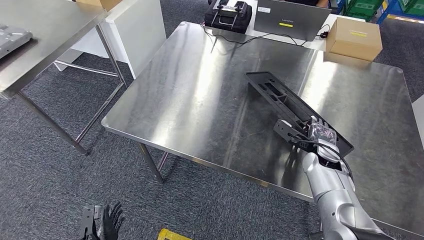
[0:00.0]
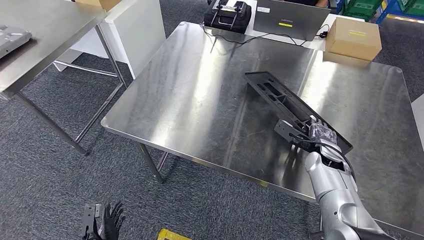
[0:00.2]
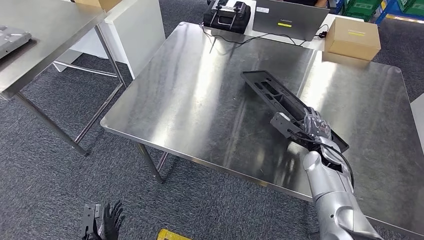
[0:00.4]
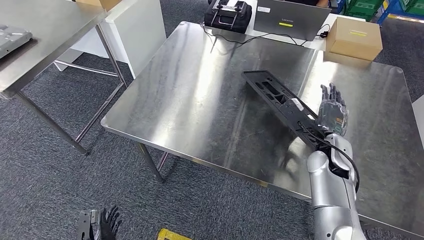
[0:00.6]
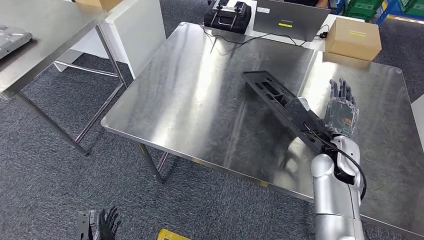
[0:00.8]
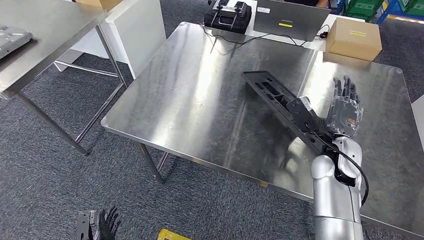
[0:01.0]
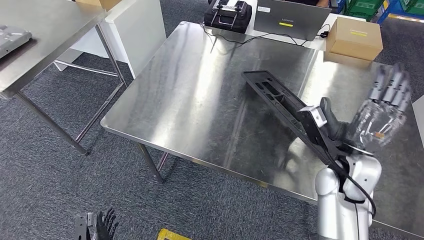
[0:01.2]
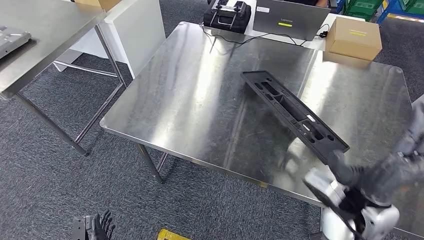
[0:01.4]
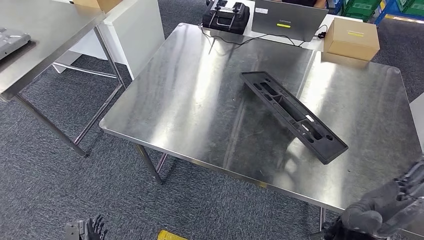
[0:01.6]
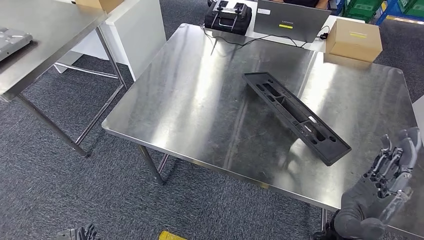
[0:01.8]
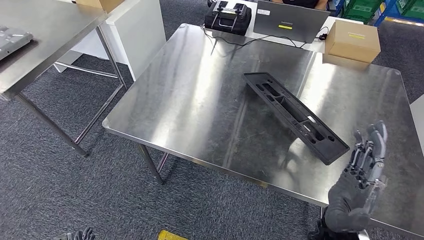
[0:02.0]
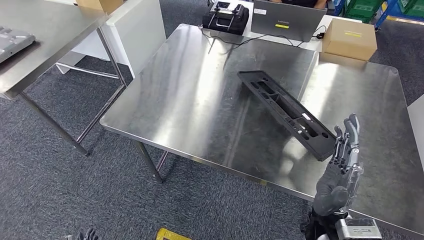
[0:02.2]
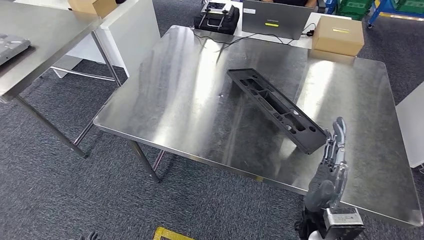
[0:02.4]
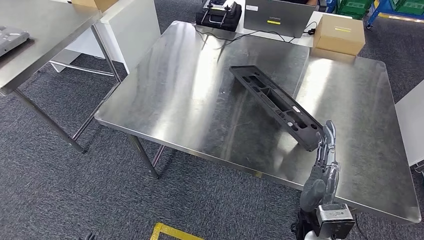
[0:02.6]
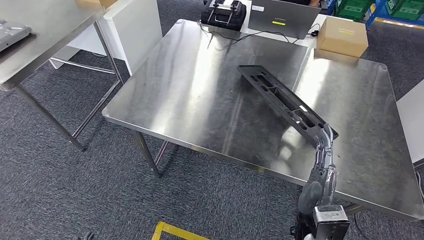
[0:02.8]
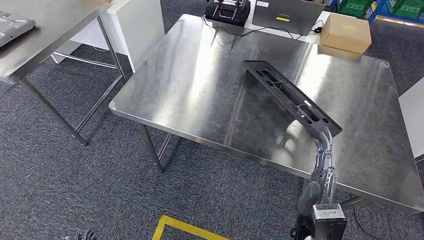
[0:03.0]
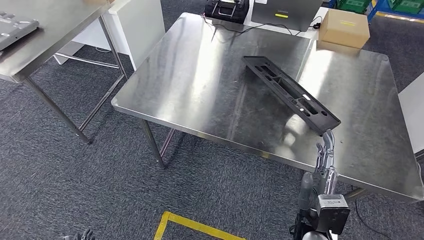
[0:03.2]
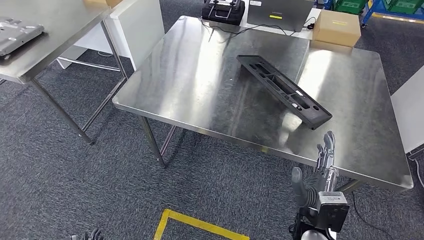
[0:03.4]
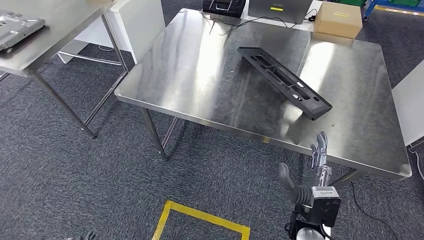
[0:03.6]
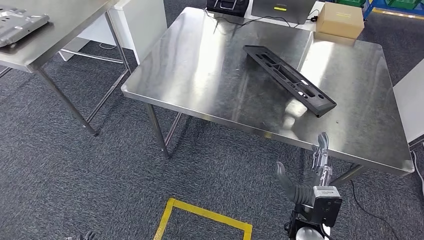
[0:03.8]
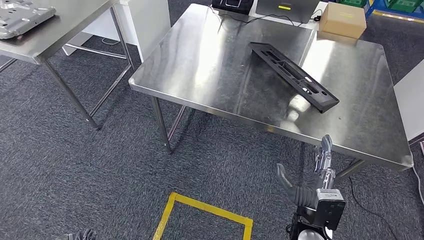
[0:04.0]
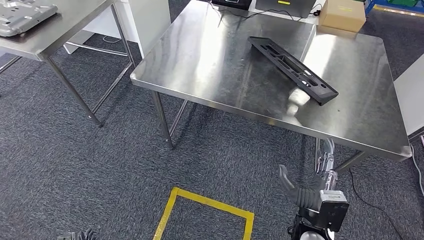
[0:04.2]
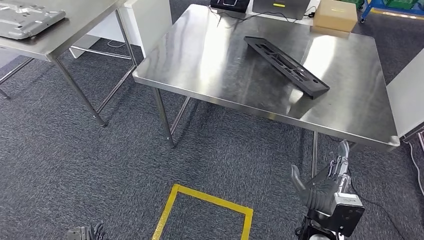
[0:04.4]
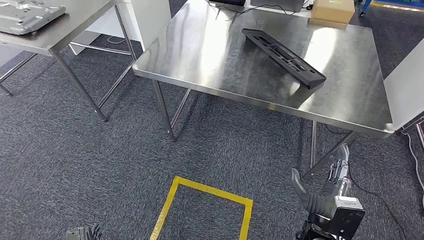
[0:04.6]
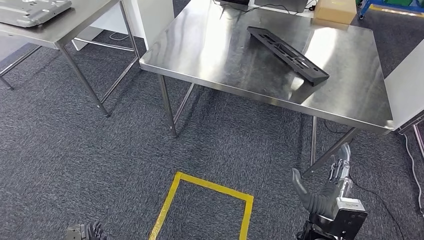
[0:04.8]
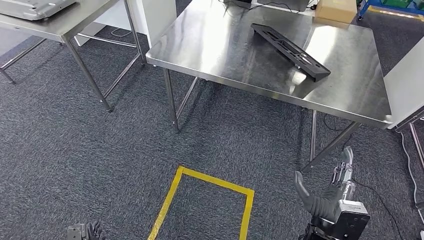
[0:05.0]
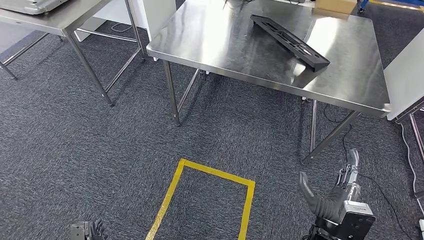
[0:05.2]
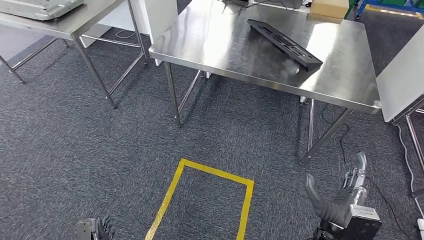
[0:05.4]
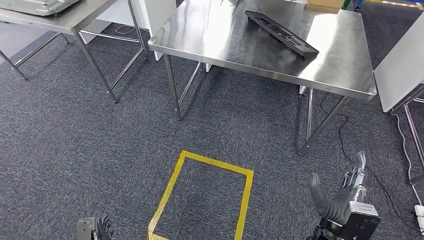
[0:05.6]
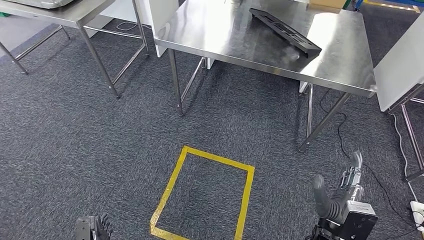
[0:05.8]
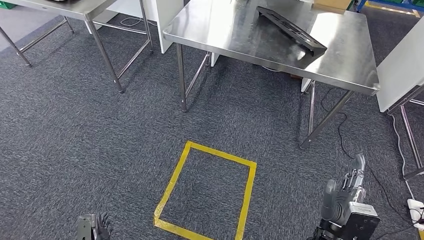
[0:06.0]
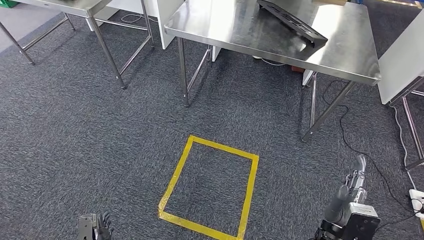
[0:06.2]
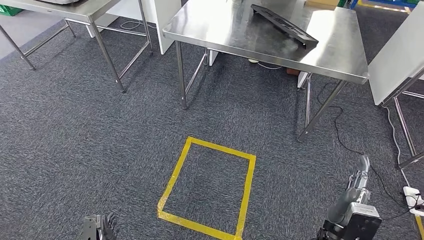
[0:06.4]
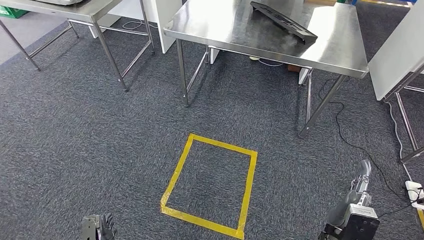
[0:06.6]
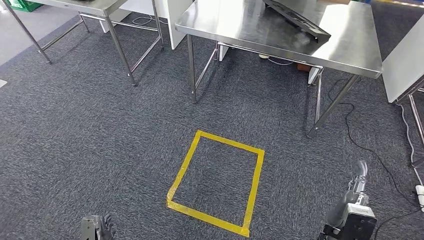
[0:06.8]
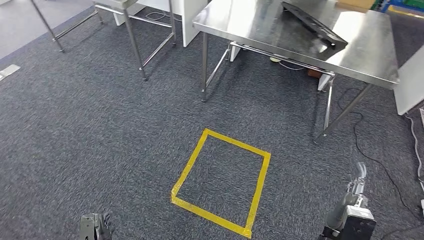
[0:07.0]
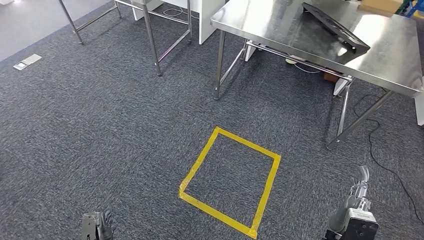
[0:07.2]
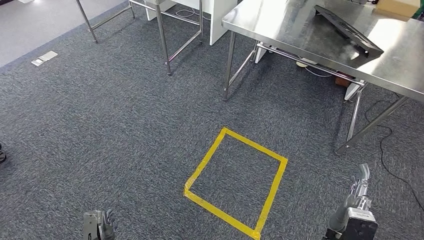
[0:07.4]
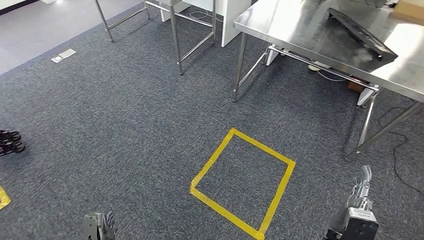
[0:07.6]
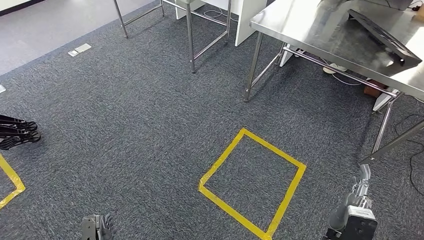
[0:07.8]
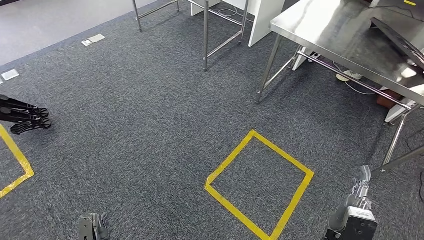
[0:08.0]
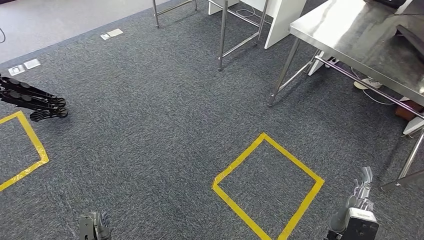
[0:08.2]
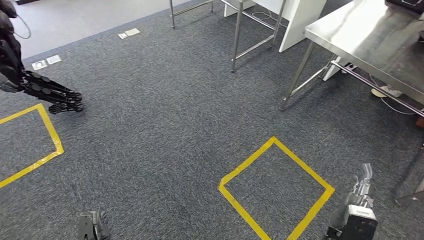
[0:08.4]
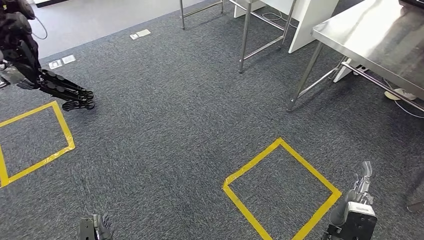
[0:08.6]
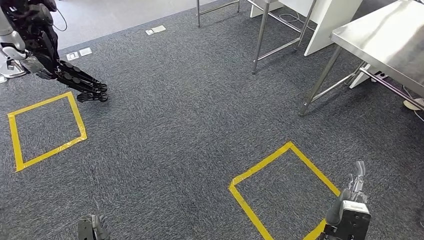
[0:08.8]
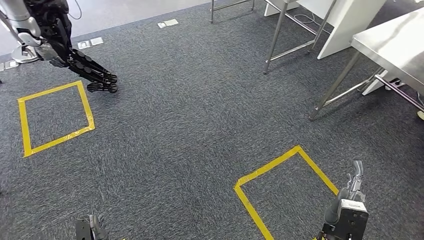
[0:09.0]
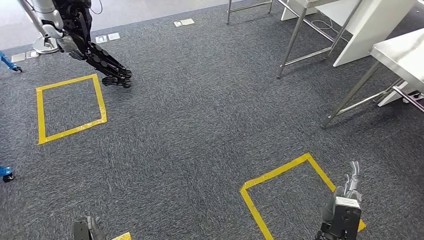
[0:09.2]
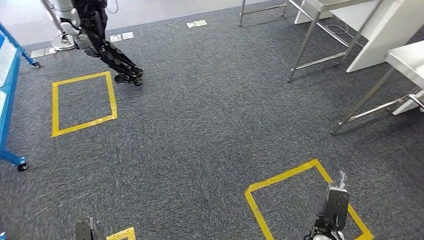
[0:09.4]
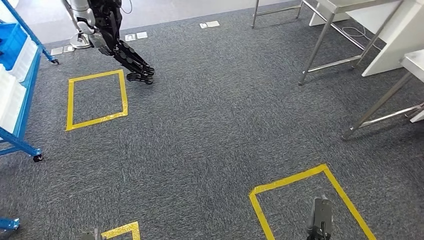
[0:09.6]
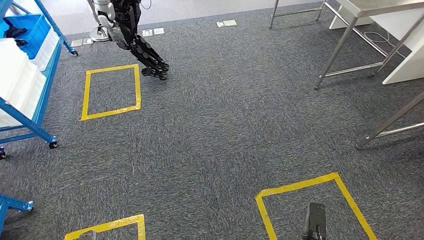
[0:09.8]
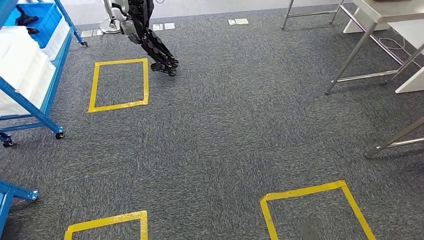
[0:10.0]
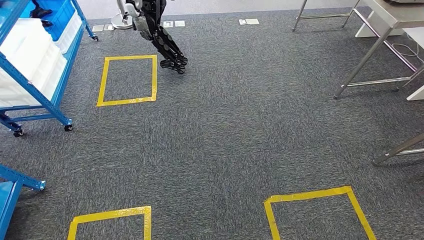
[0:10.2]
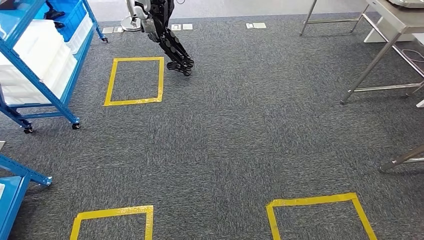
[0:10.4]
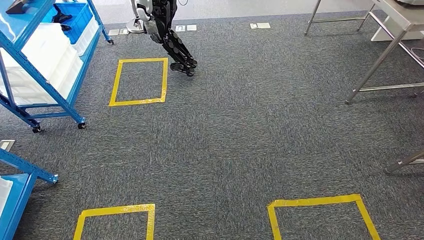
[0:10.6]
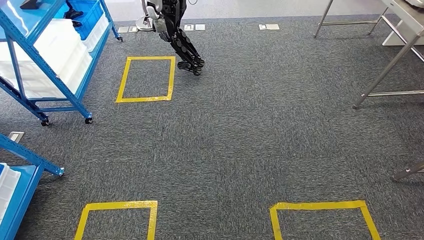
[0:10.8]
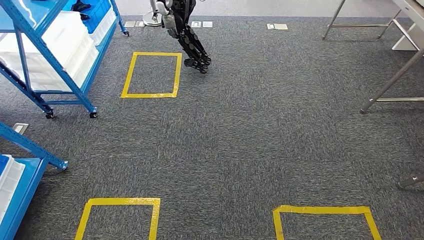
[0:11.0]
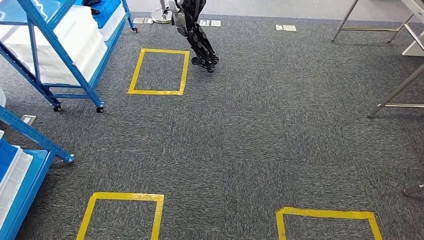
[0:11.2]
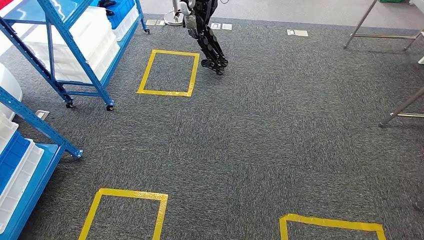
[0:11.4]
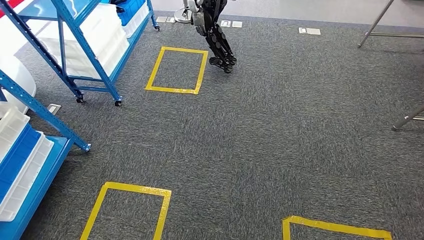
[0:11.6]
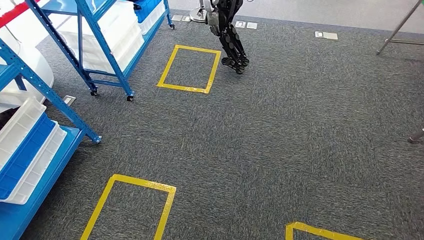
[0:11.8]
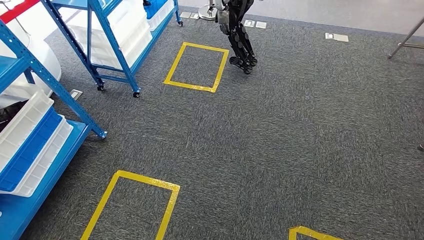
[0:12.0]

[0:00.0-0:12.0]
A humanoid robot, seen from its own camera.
0:00.0 to 0:01.6: The right hand shifts approximately 25 cm backward, upward and to the left.

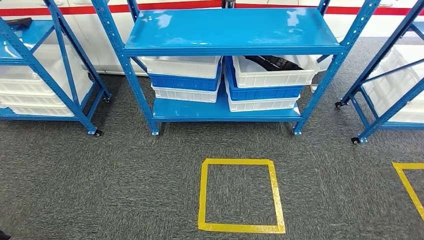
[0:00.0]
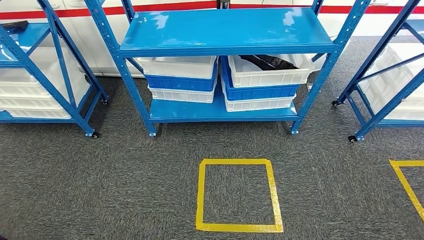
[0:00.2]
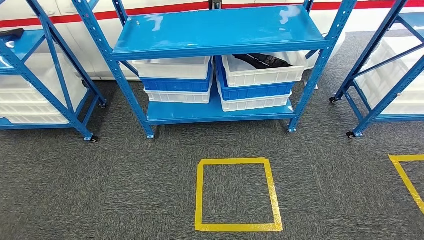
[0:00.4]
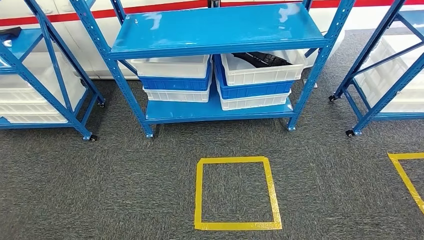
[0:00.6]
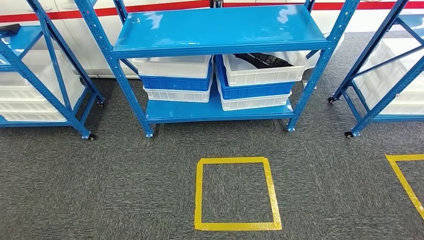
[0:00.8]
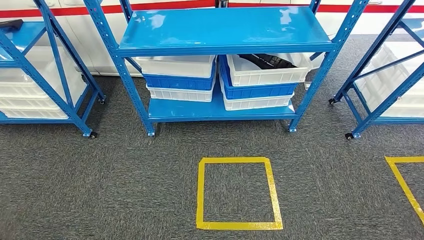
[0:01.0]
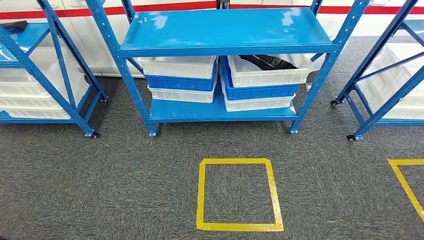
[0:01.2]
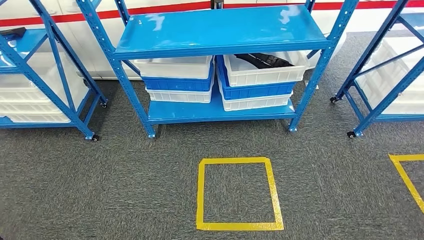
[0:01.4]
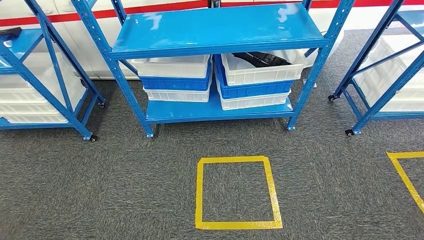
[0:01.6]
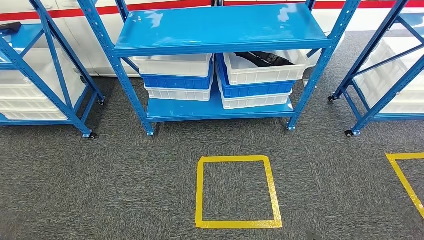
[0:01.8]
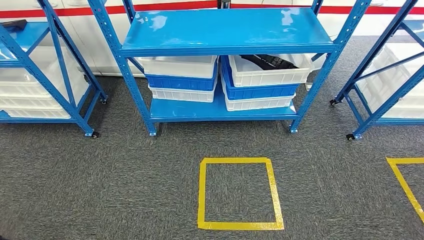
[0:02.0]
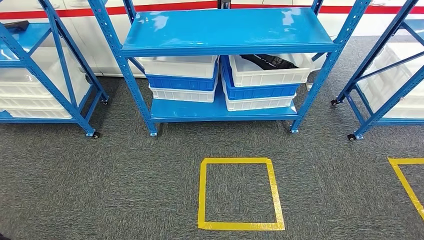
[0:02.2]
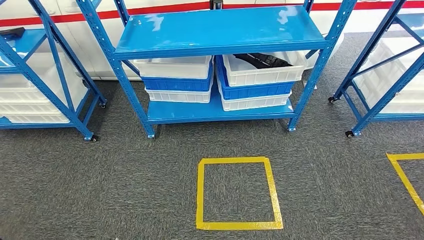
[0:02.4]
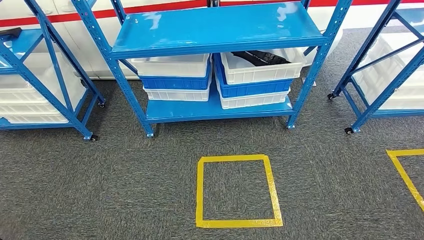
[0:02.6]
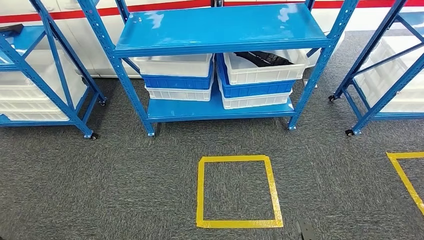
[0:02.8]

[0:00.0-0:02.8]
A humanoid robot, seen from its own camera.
Step, 0:00.0 to 0:02.8: Return to the initial position at the shelf.
0:01.4 to 0:02.8: The right hand reaches roughly 10 cm backward, then returns. The left hand goes forward and backward, about 15 cm each way, reversing 2 times.

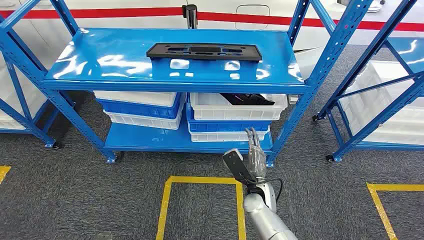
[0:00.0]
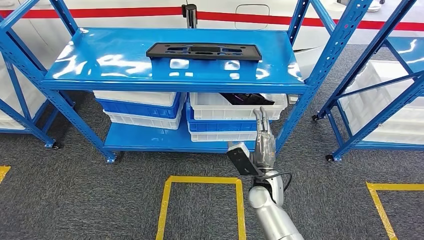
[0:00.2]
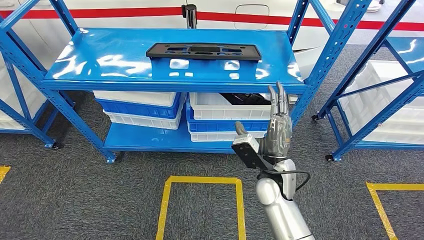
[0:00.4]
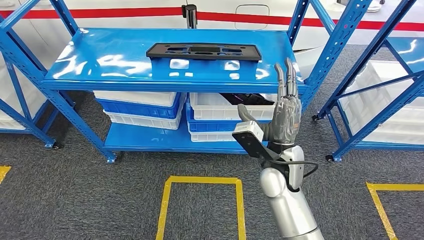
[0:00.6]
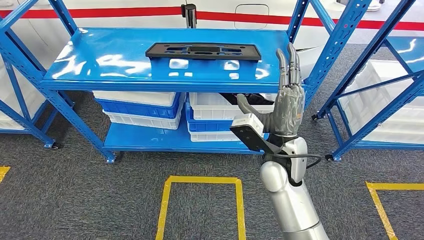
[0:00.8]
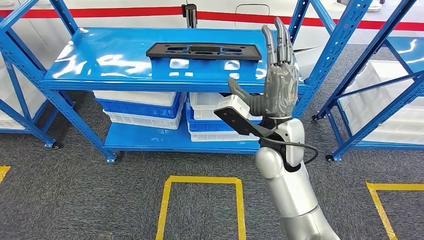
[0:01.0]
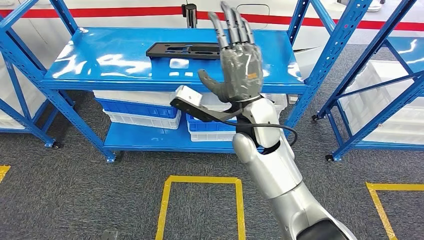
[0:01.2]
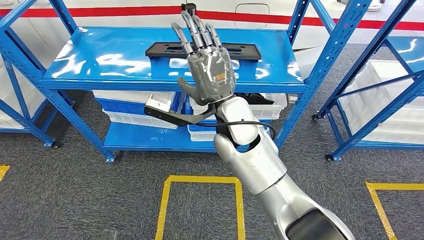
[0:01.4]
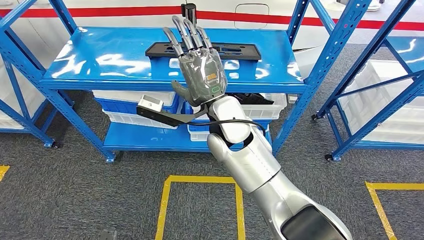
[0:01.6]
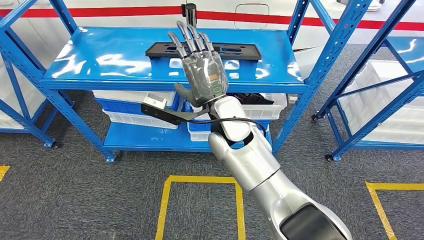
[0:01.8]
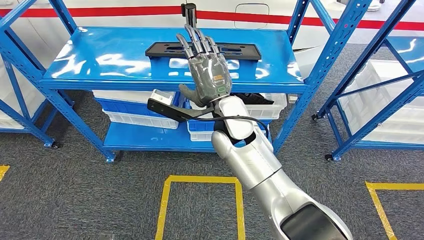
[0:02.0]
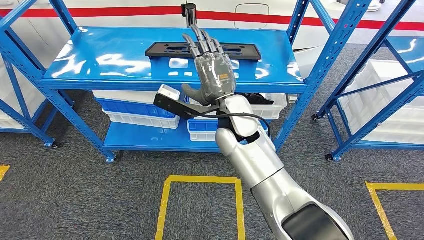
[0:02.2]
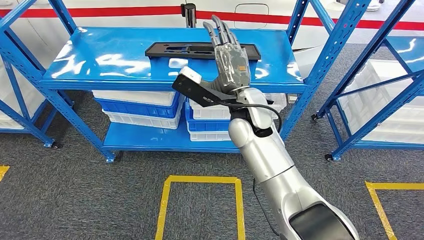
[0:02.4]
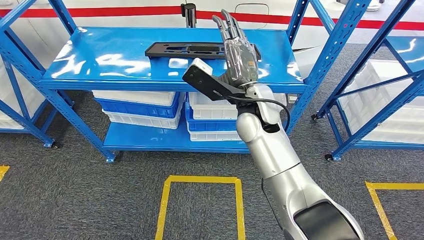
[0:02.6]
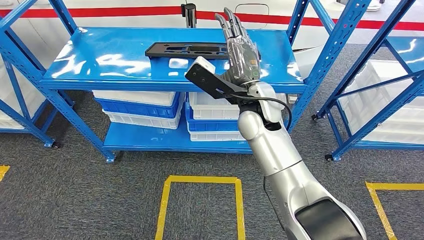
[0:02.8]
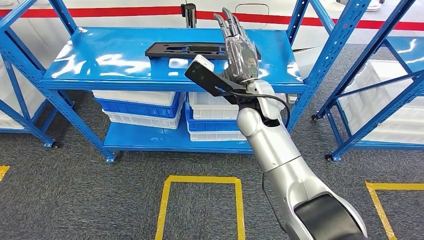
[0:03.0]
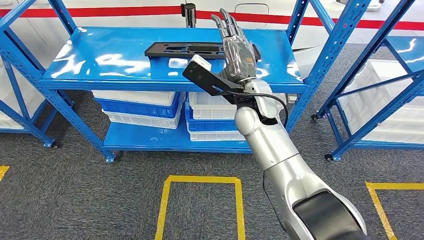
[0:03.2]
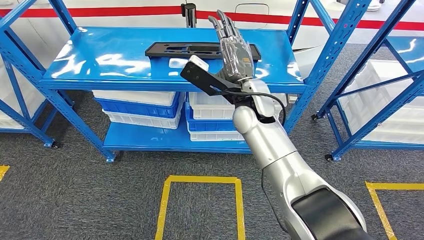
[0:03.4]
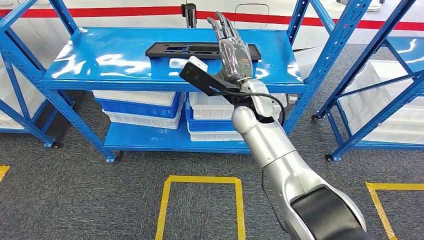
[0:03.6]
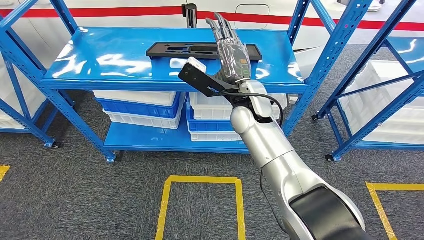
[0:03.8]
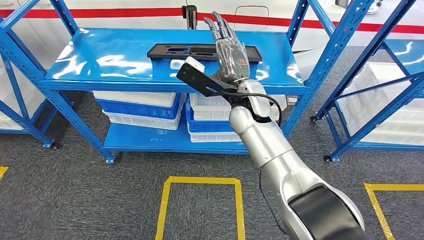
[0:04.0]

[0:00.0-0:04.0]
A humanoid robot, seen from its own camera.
0:01.4 to 0:02.6: The right hand ends up approximately 5 cm from where it was.
